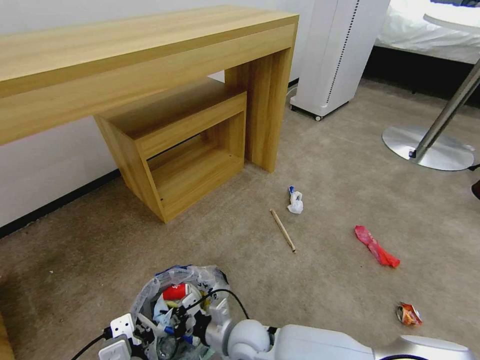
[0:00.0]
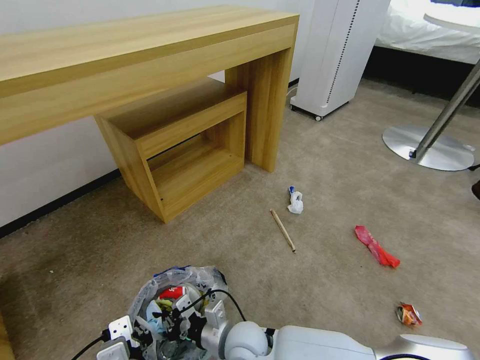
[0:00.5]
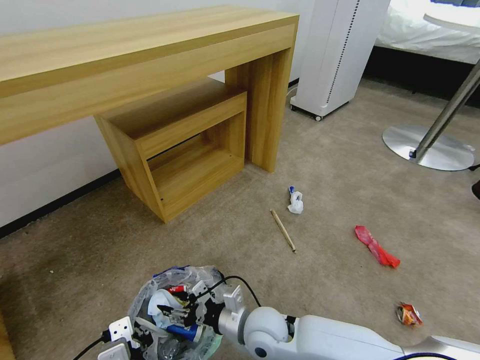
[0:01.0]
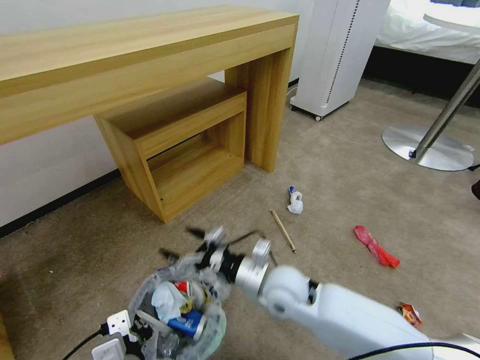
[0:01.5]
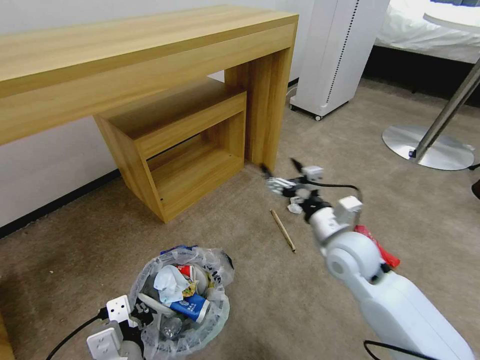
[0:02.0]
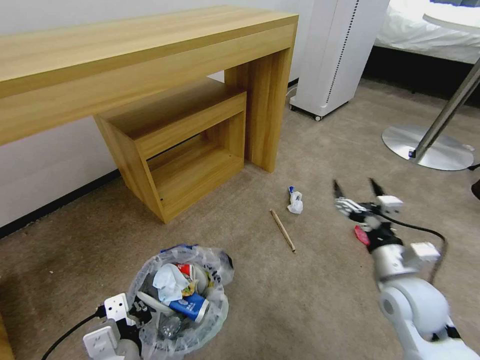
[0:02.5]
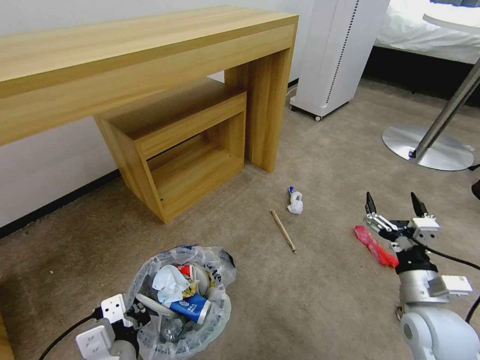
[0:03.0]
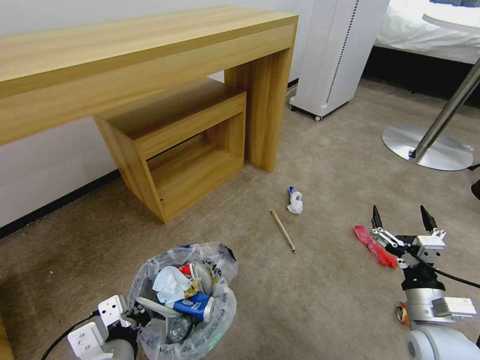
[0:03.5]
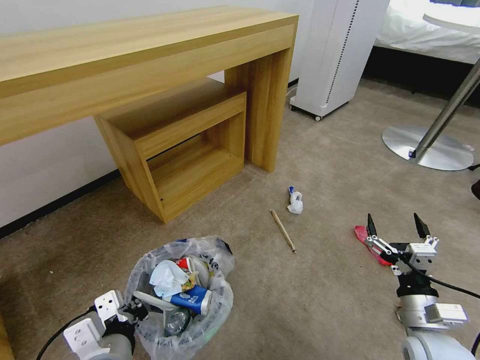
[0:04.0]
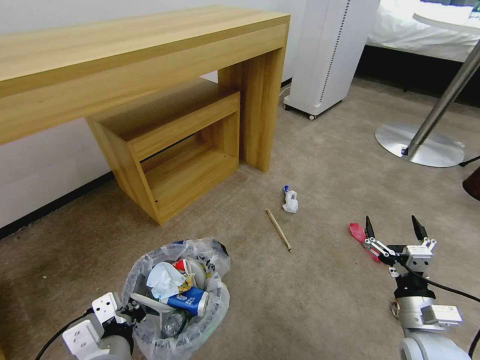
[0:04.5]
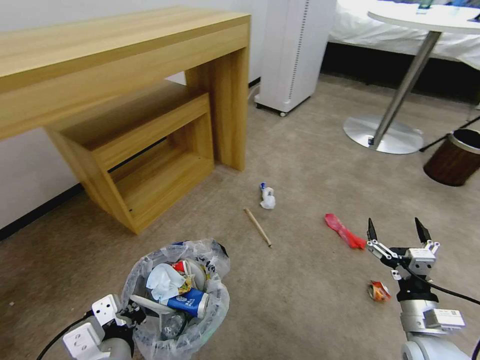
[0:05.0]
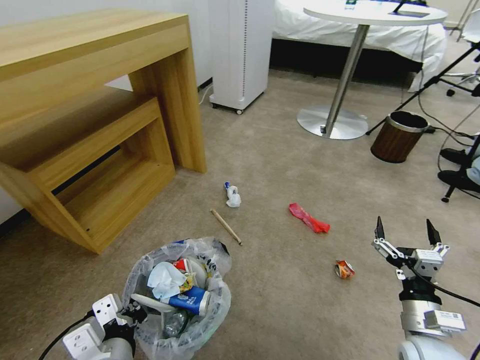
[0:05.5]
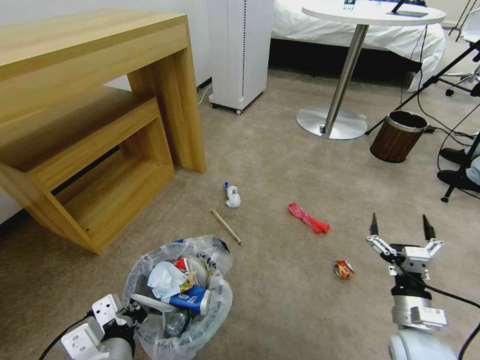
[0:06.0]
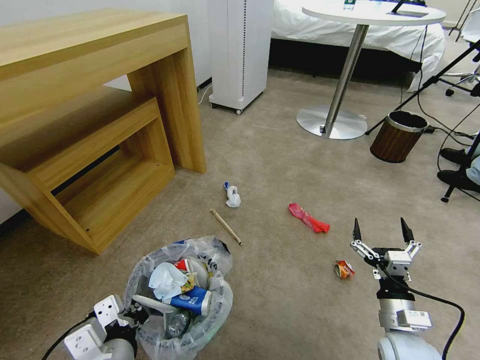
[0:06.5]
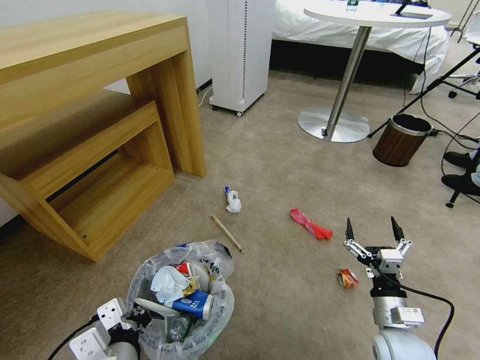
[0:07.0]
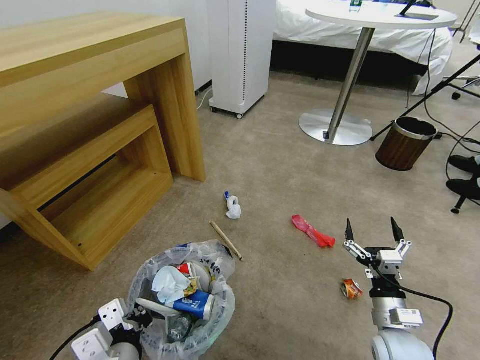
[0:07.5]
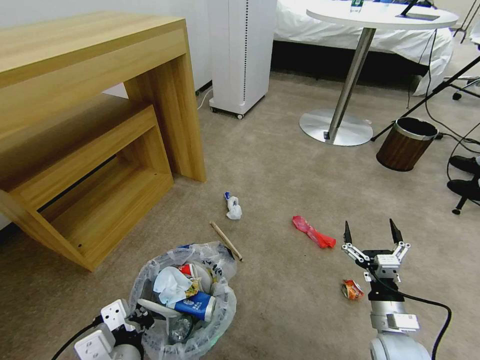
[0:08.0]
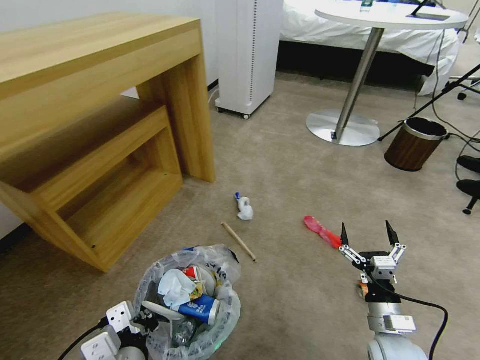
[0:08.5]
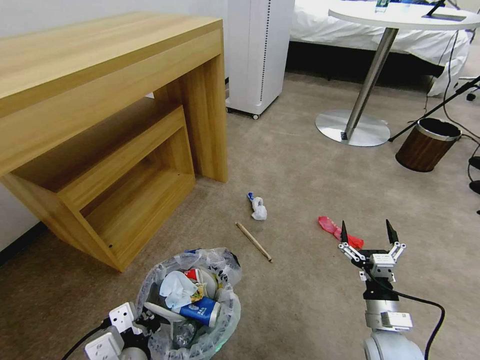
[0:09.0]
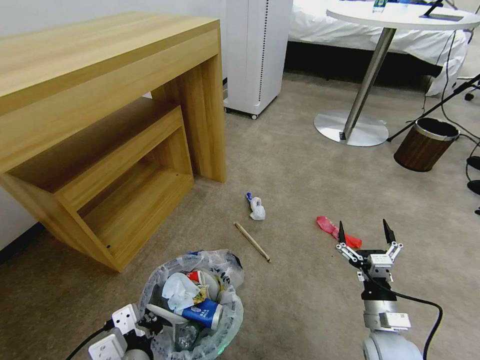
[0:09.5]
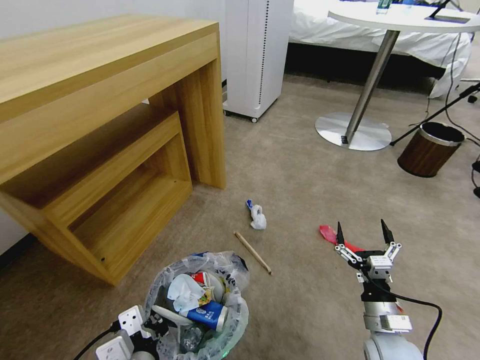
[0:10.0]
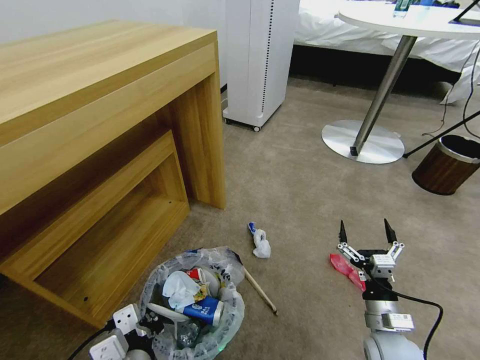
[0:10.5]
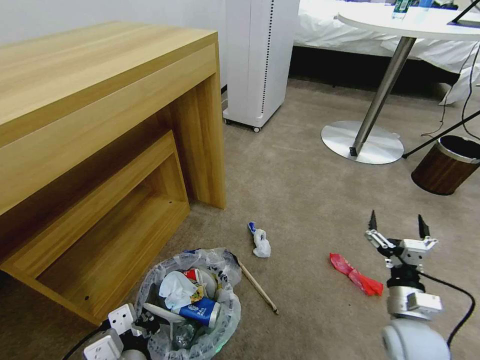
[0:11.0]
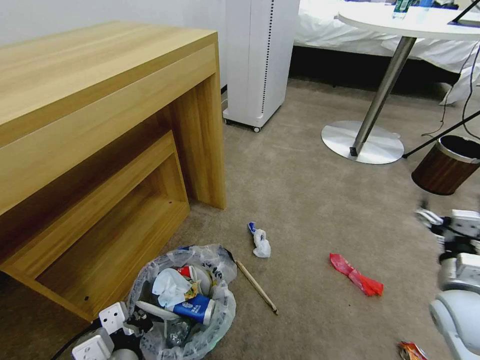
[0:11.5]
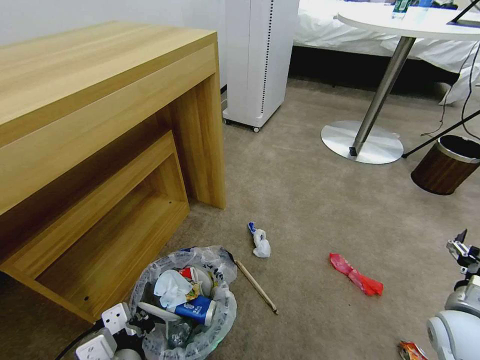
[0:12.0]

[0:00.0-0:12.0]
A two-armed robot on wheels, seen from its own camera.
Task of the whole recording: Pick up the trash bin and place the garbage on the floor into it.
0:00.0 to 0:02.0: The right gripper is displaced upward, to the right and forward by about 30 cm, and opens.
0:02.0 to 0:04.0: The right gripper travels backward, to the right and downward by roughly 25 cm.
0:10.0 to 0:12.0: The right gripper moves to the right and upward, some 15 cm.

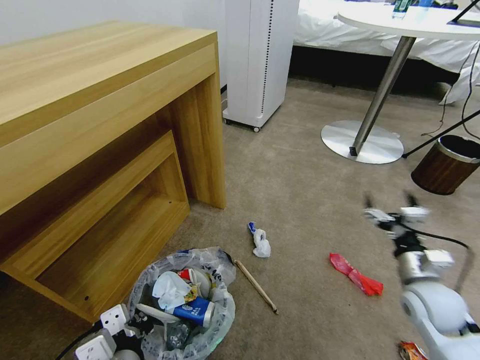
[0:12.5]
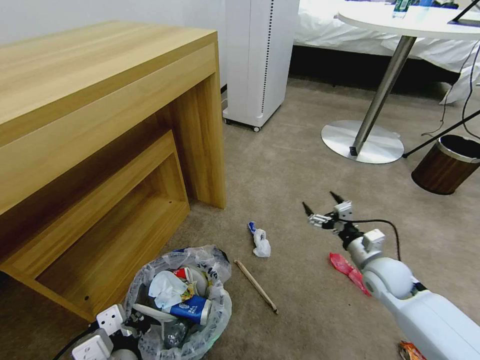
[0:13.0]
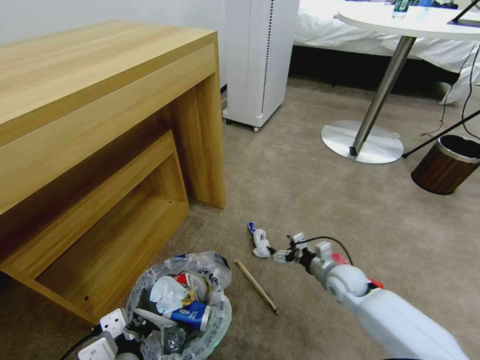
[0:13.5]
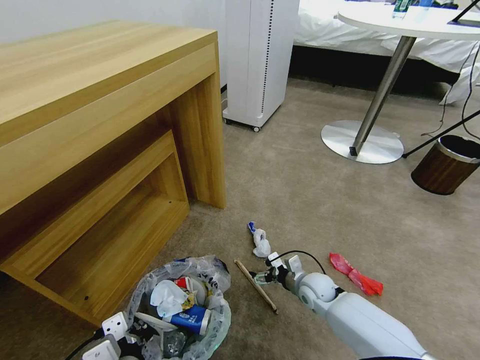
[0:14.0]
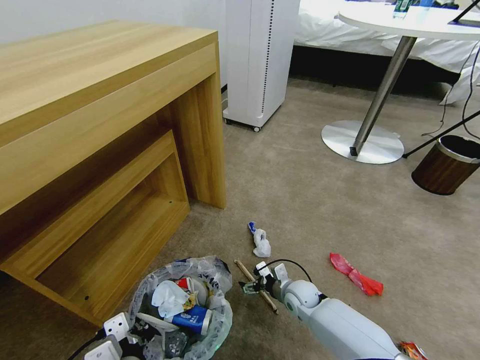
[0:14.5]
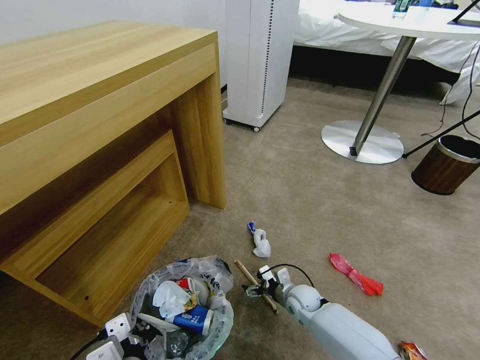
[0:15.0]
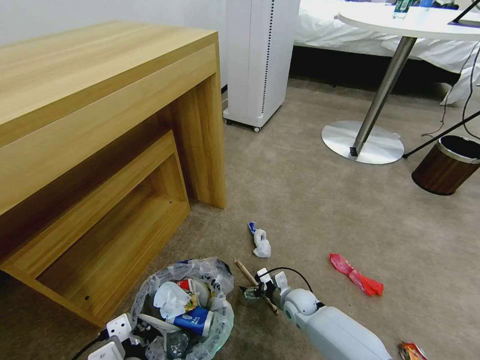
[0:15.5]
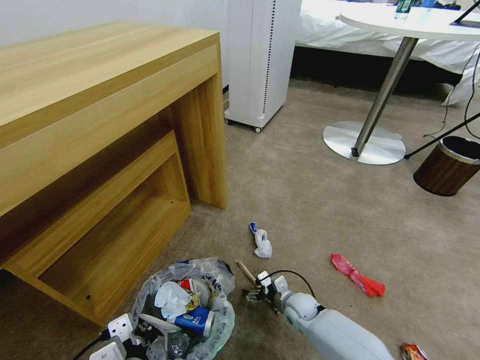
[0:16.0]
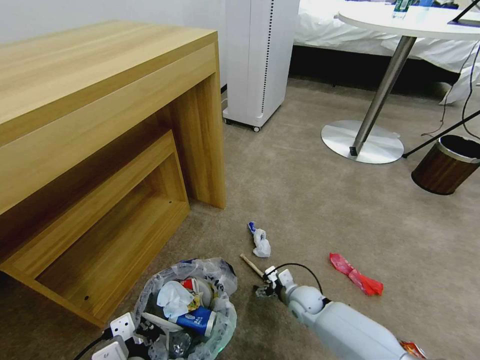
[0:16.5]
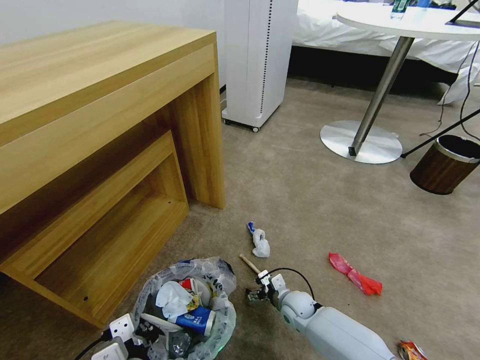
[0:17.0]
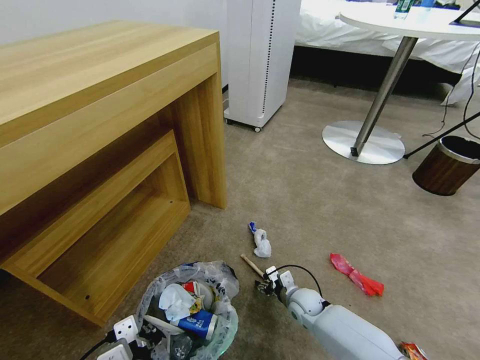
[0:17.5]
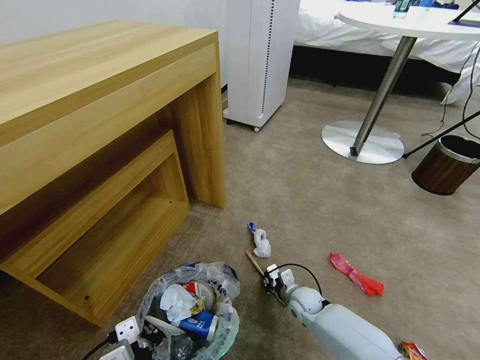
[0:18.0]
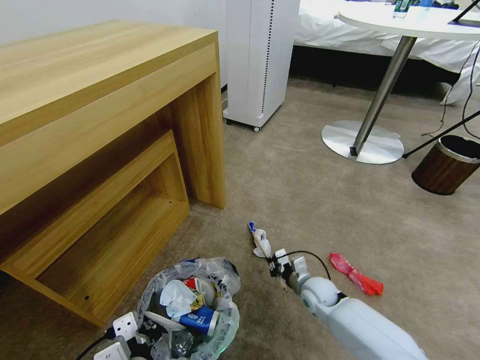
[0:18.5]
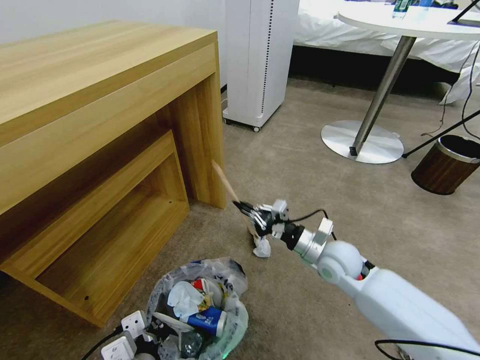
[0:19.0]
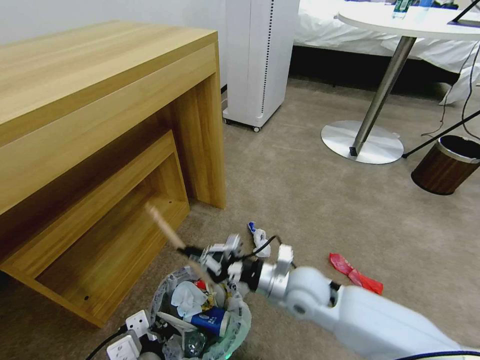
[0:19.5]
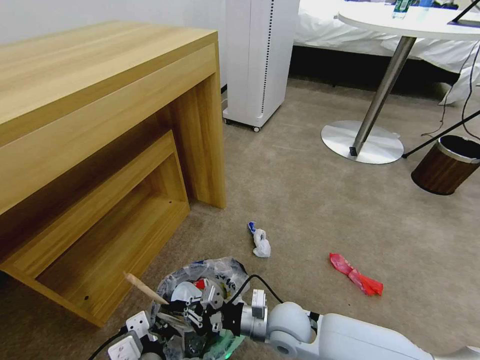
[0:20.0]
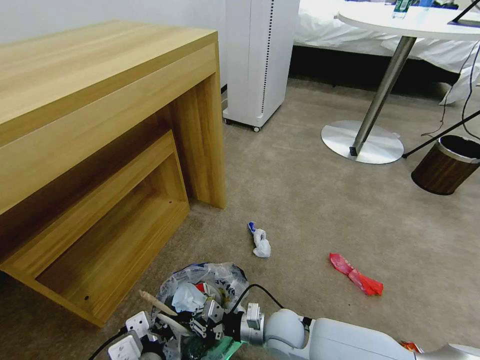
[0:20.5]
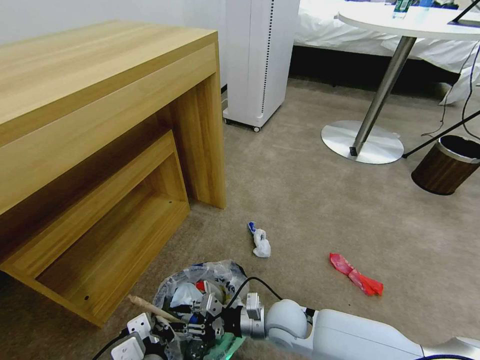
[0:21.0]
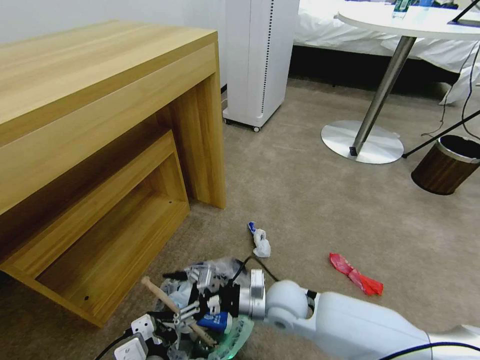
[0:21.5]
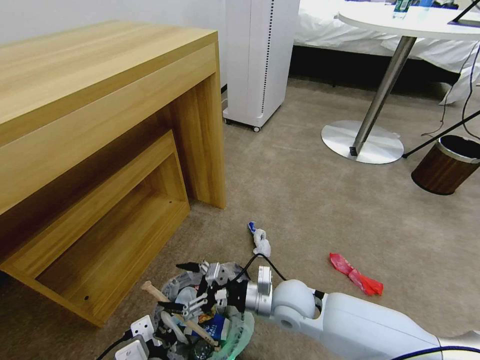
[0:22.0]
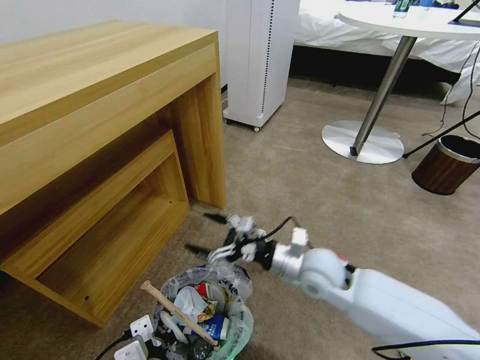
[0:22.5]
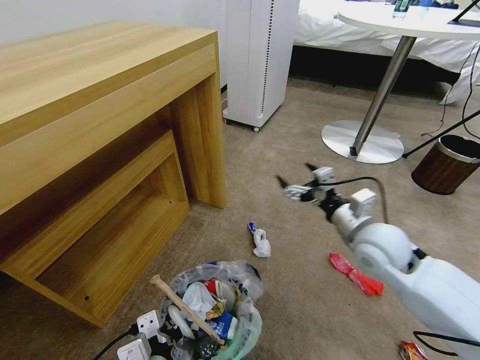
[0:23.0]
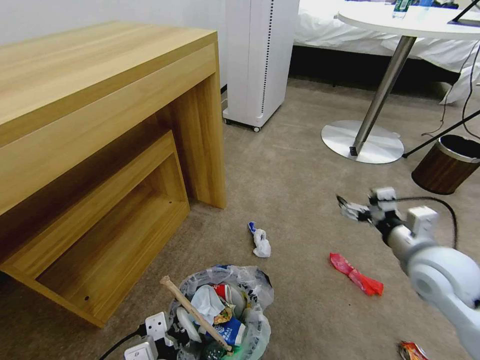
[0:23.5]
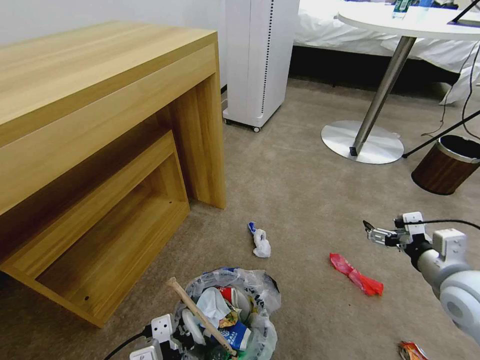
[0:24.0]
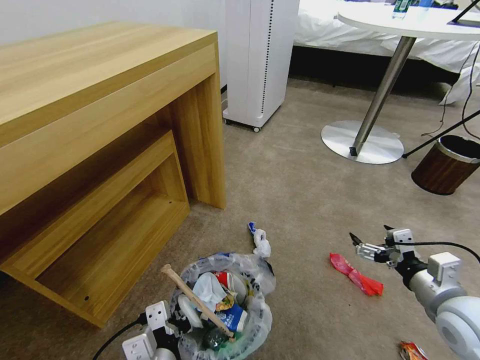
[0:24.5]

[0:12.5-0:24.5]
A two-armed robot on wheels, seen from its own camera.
Task of the whole recording: Pick up the trash bin and place the garbage on the floor into it.
0:12.5 to 0:14.5: The right gripper goes about 30 cm to the left, downward and forward.
0:14.5 to 0:16.5: The grippers move only a little.
0:16.5 to 0:18.5: The right gripper closes up.
0:18.5 to 0:20.5: The right gripper heads to the left and backward, covering approximately 15 cm, and reaches roughly 20 cm upward, then returns.
0:20.5 to 0:22.5: The right gripper is displaced upward and forward by about 20 cm, and opens up.
0:22.5 to 0:24.5: The right gripper heads to the right and backward, covering some 25 cm.

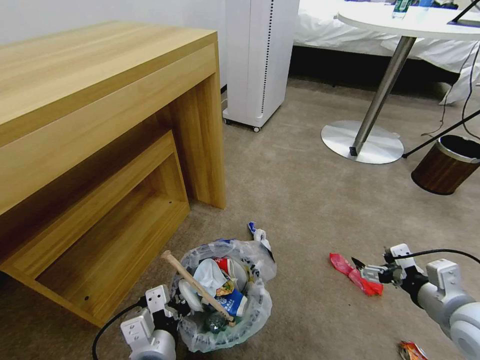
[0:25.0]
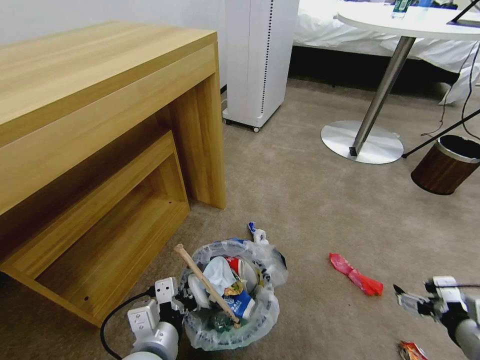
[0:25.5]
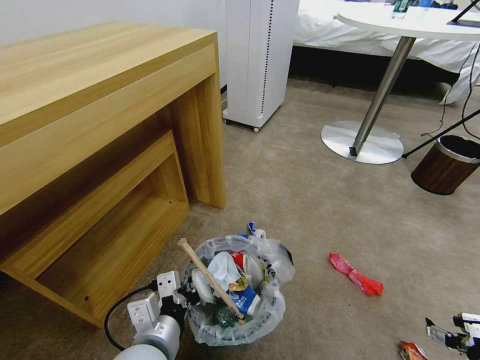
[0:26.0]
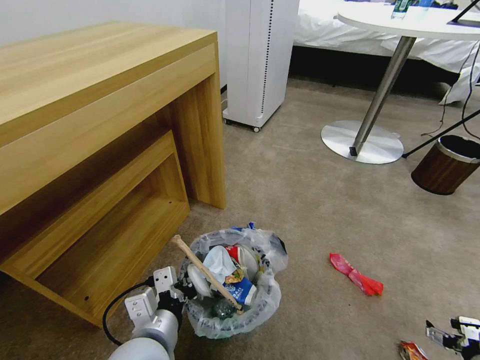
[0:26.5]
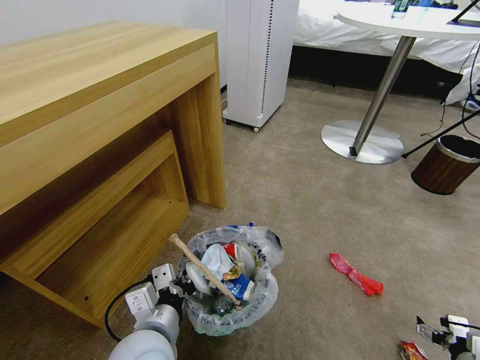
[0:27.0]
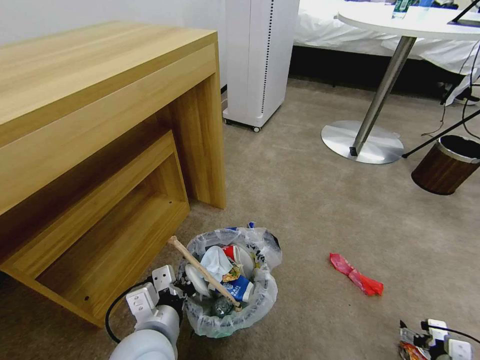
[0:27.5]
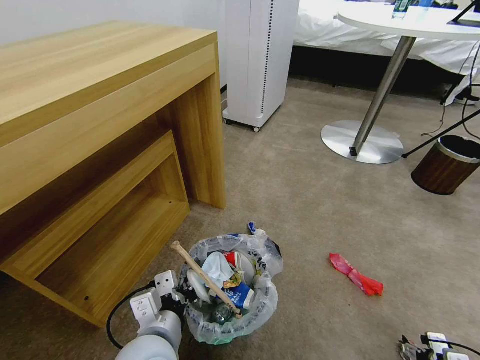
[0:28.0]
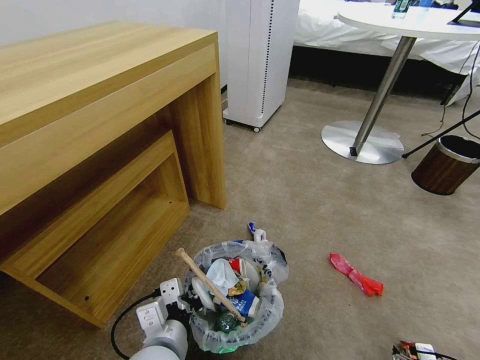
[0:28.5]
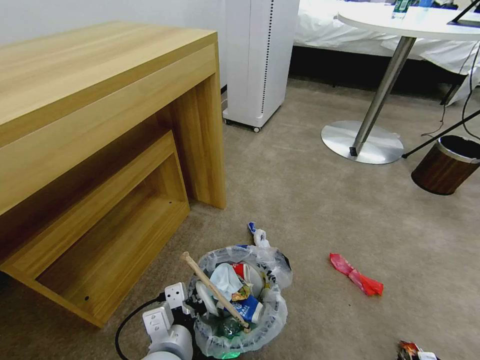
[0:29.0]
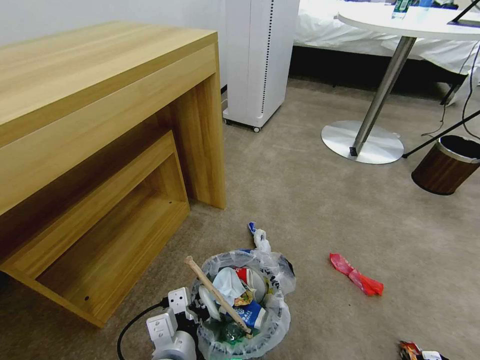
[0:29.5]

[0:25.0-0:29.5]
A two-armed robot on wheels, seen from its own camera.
Task of the whole recording: Pick up the trash bin and place the garbage on the floor into it.
0:25.0 to 0:27.0: The right gripper heads downward and to the right, covering about 20 cm.
0:27.0 to 0:29.5: The left gripper changes place by some 5 cm; the right gripper is displaced downward and backward by approximately 10 cm.
